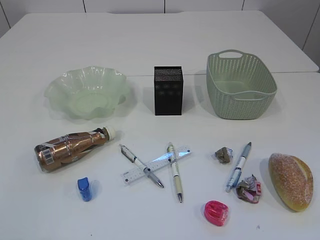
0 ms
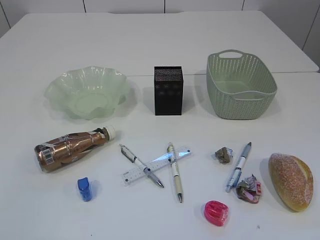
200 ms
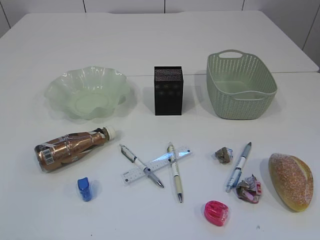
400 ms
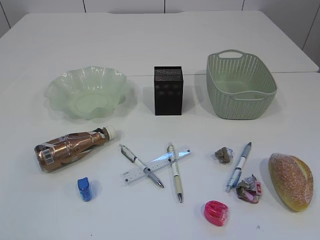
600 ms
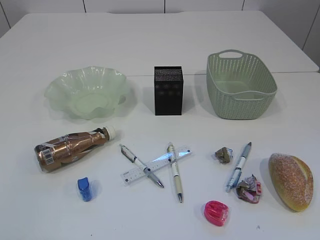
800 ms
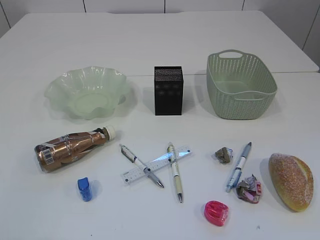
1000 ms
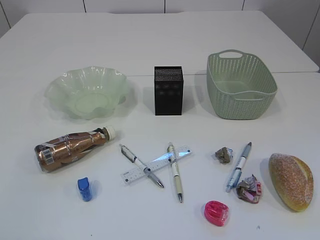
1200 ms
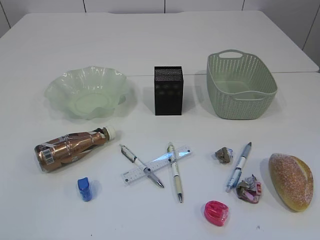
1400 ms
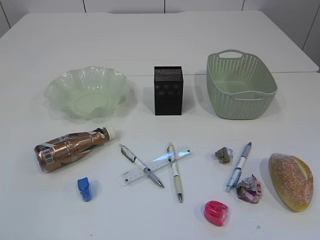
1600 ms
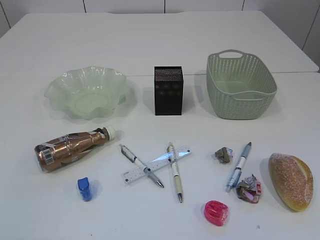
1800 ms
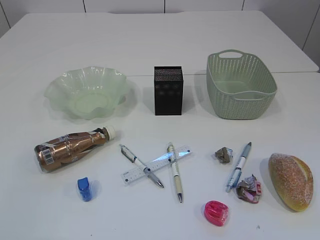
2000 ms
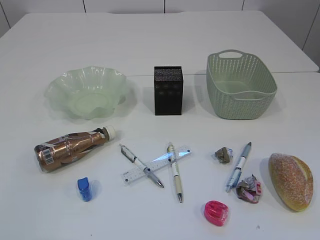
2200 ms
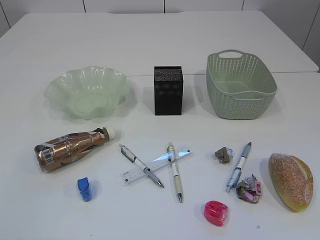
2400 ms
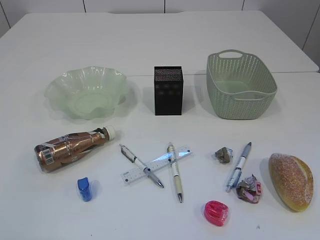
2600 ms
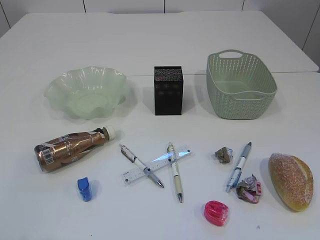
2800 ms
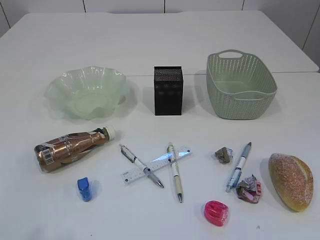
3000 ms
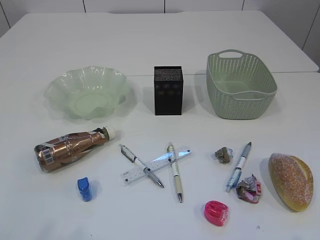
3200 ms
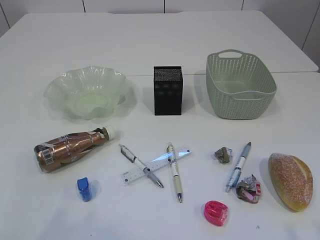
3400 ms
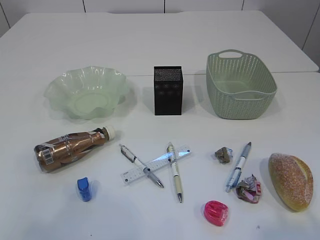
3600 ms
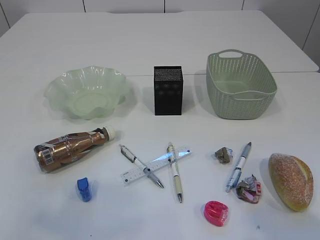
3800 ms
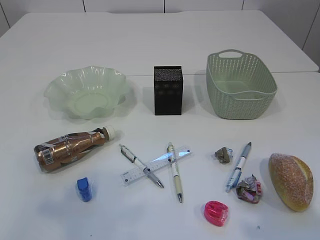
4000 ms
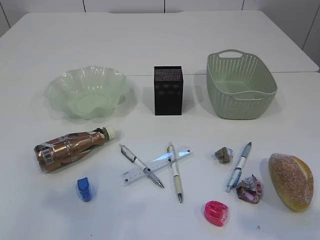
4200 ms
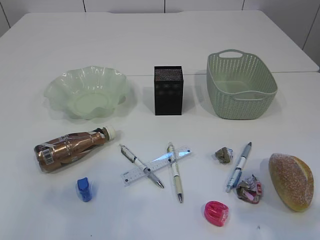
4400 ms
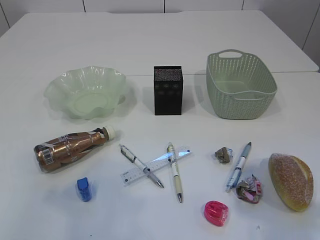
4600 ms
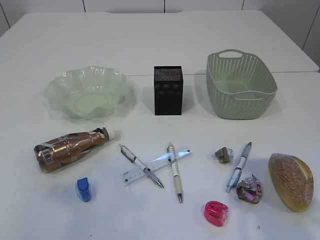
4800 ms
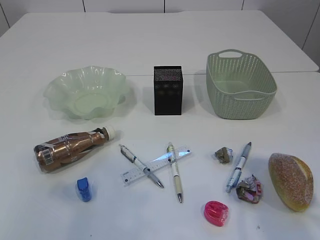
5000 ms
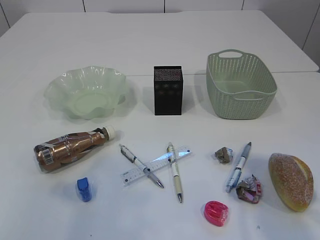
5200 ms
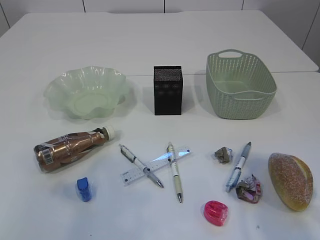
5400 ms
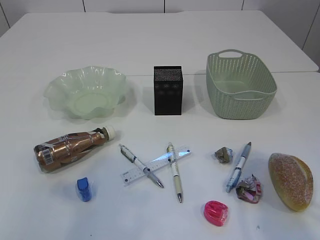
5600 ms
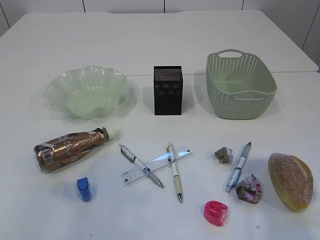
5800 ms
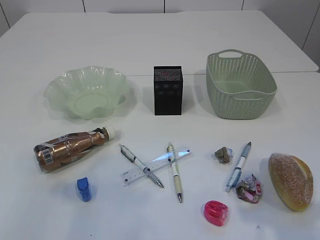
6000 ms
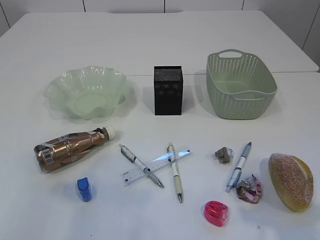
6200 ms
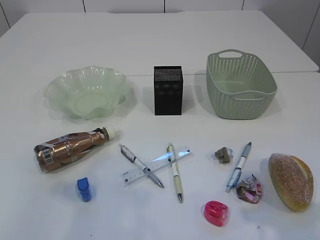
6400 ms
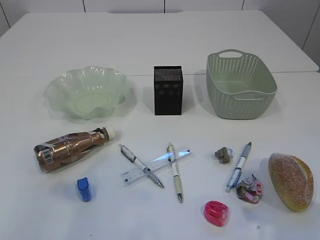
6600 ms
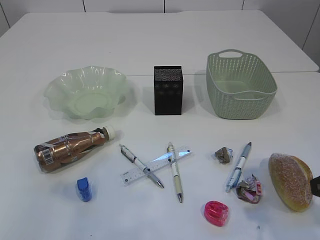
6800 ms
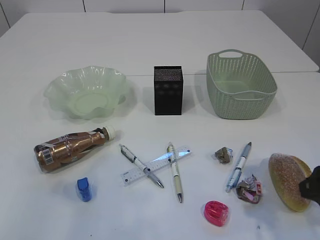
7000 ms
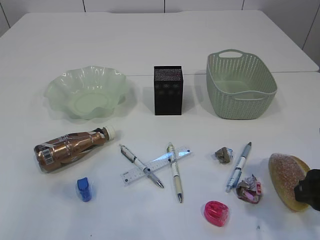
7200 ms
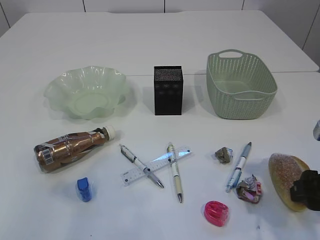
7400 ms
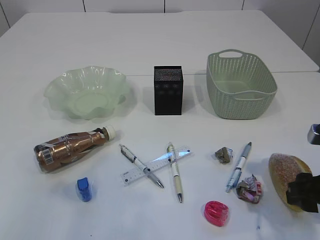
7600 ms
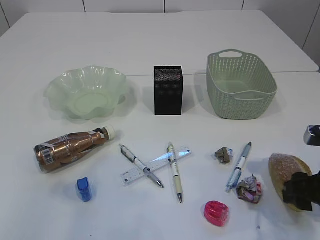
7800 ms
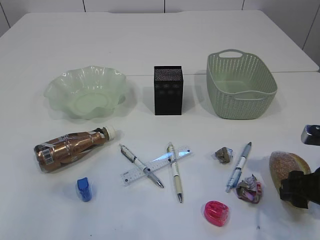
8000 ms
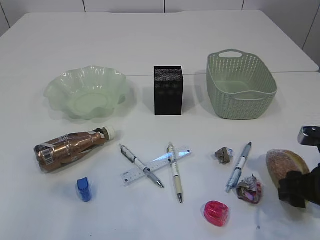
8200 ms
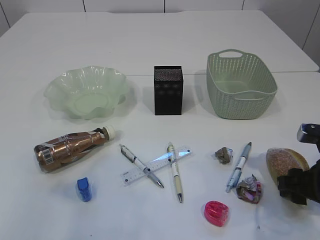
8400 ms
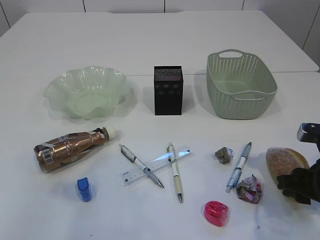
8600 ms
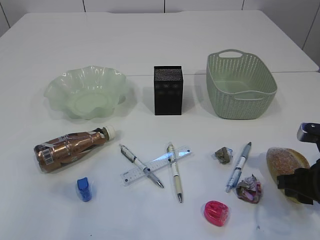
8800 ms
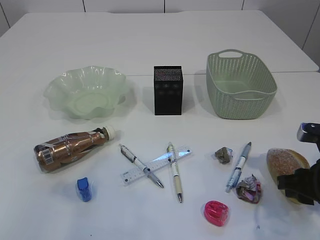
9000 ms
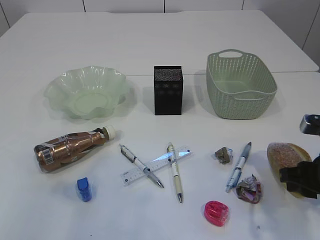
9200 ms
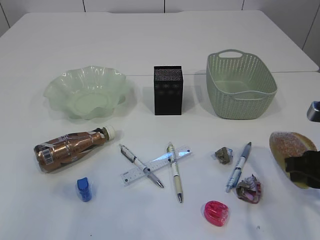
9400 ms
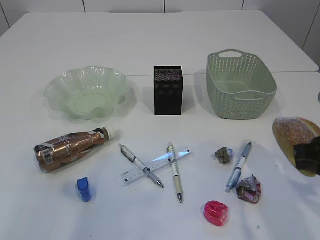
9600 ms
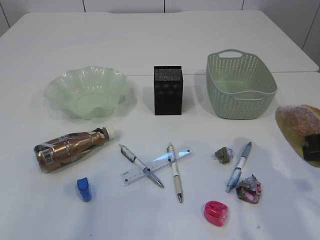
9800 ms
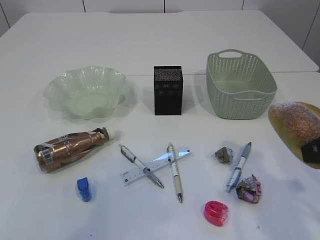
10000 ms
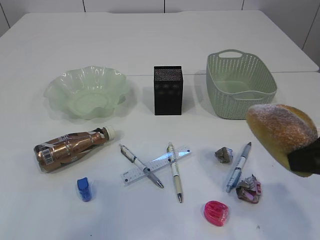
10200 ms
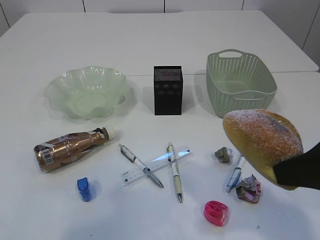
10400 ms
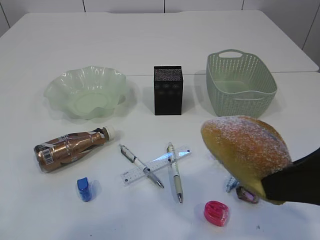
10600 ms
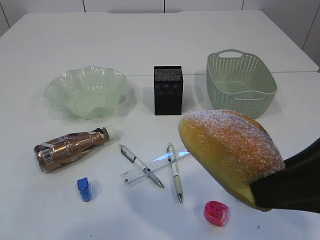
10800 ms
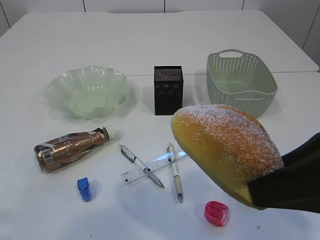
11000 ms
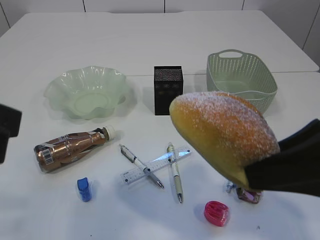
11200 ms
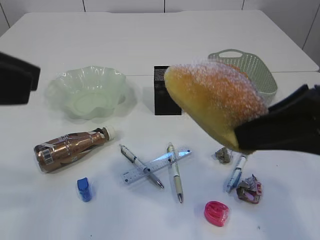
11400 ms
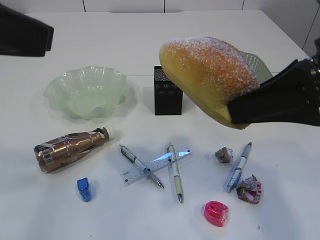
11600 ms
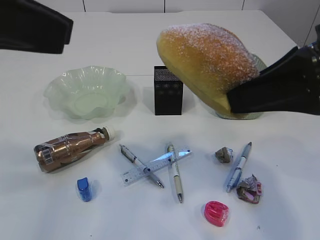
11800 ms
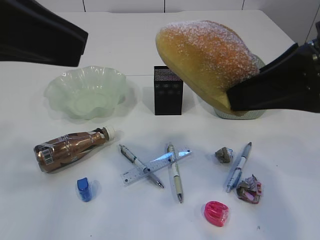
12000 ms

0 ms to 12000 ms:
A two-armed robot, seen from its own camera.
3000 ms to 4400 ms: Both grippers move forward, roughly 10 cm.
6000 ms to 7600 ms: The right gripper shifts some 15 cm downward and forward.
7600 ms to 9000 ms: The right gripper closes up.
9000 ms to 10400 ms: The right gripper goes some 15 cm upward and backward.
10400 ms to 12000 ms: The right gripper travels upward by roughly 5 cm, while the left gripper shifts approximately 15 cm forward and to the right.

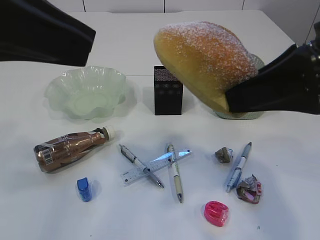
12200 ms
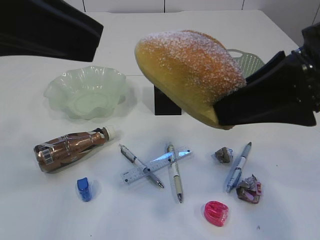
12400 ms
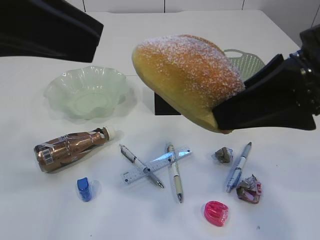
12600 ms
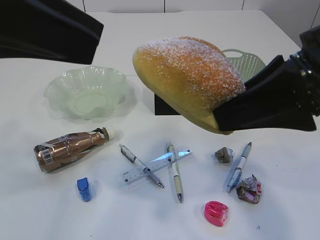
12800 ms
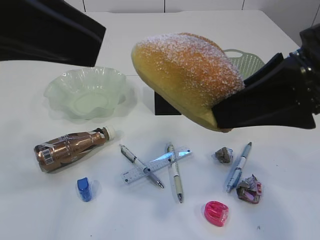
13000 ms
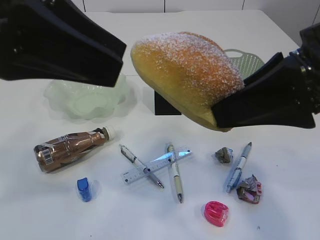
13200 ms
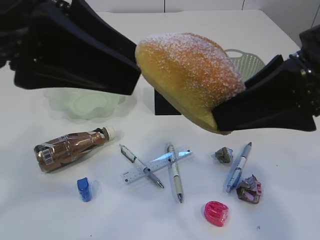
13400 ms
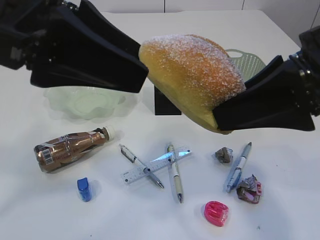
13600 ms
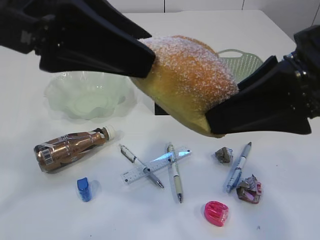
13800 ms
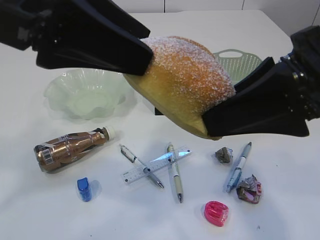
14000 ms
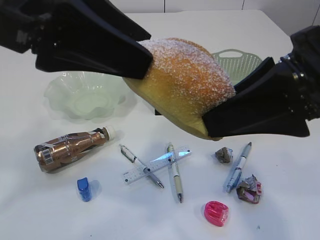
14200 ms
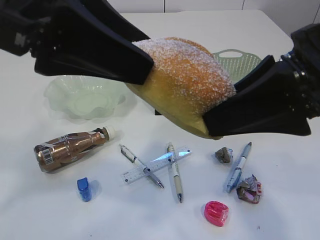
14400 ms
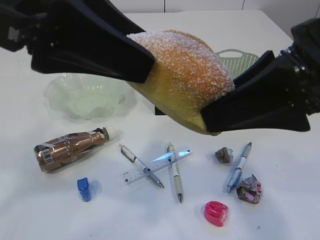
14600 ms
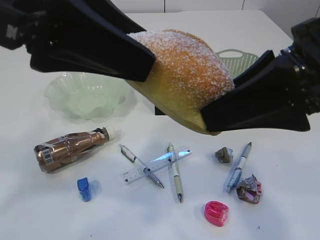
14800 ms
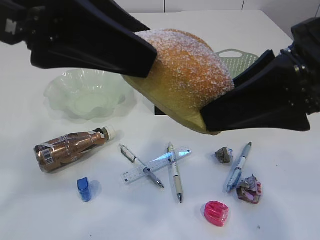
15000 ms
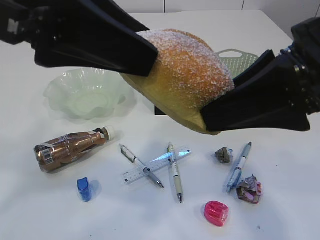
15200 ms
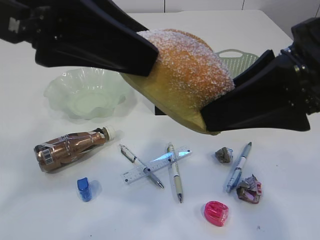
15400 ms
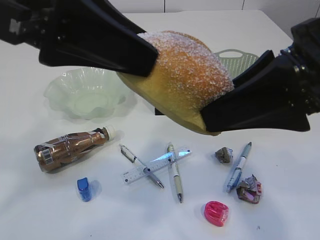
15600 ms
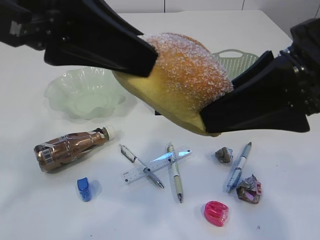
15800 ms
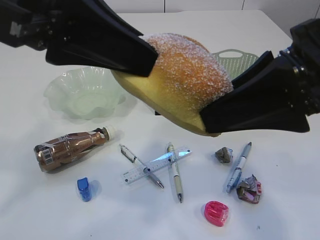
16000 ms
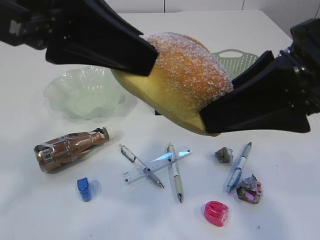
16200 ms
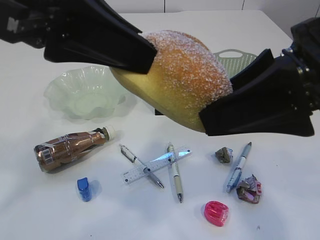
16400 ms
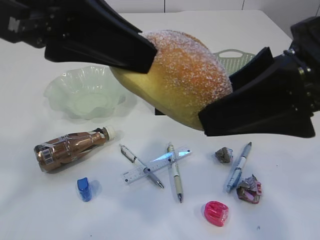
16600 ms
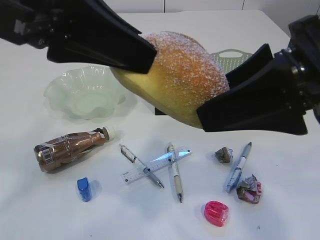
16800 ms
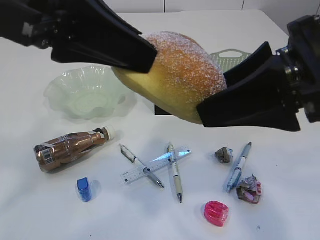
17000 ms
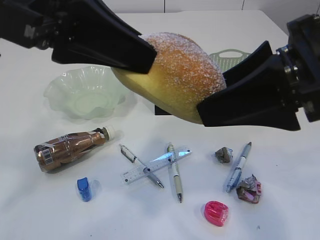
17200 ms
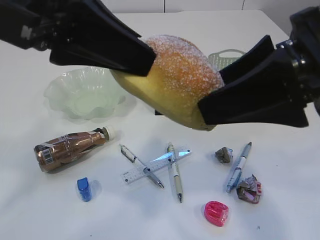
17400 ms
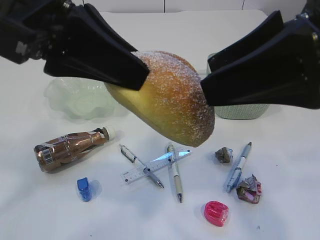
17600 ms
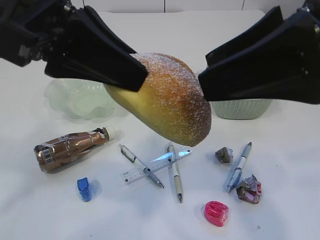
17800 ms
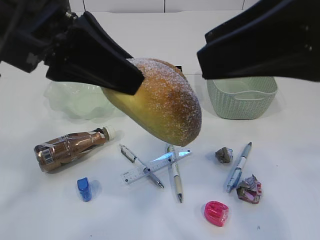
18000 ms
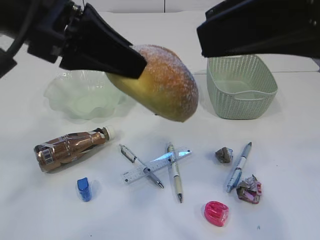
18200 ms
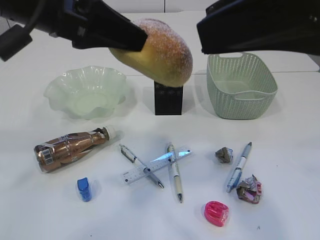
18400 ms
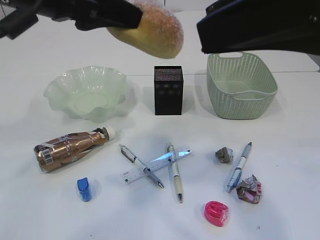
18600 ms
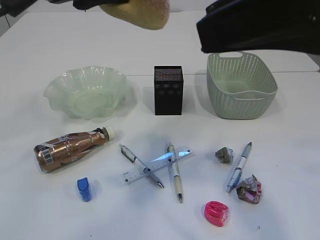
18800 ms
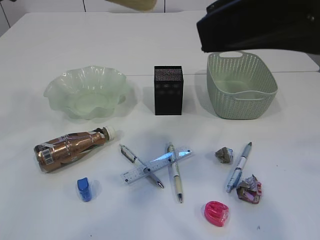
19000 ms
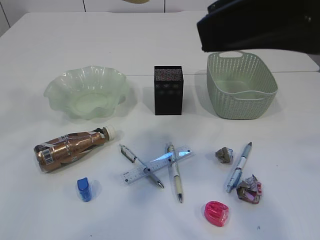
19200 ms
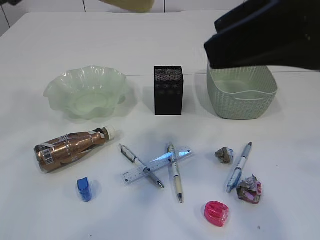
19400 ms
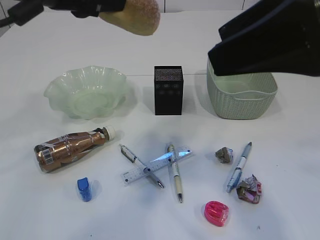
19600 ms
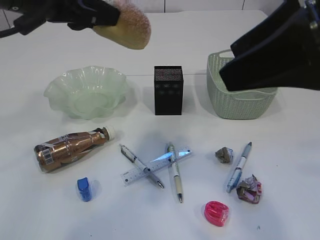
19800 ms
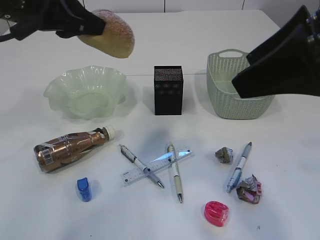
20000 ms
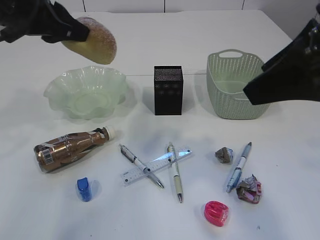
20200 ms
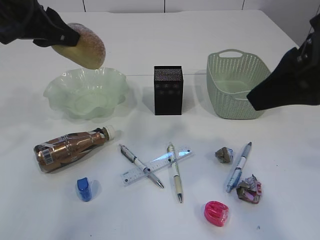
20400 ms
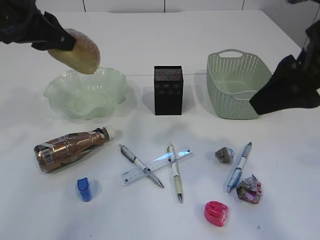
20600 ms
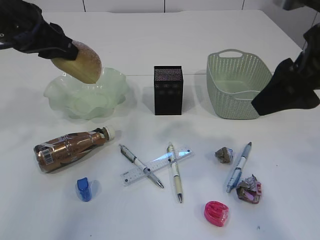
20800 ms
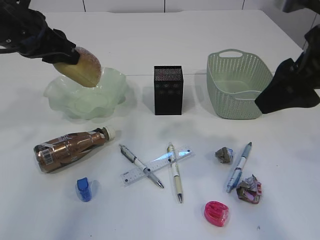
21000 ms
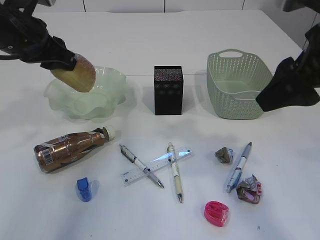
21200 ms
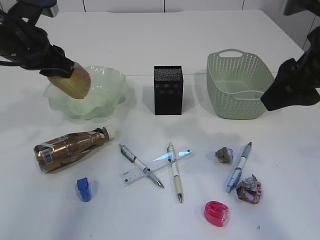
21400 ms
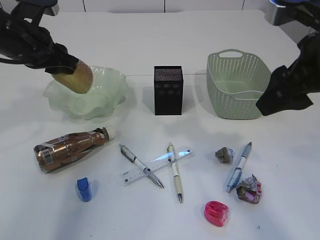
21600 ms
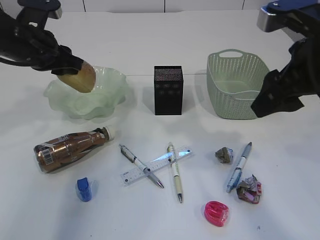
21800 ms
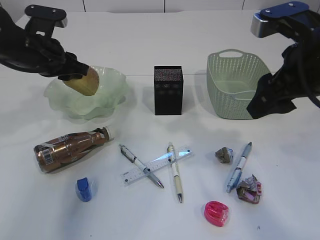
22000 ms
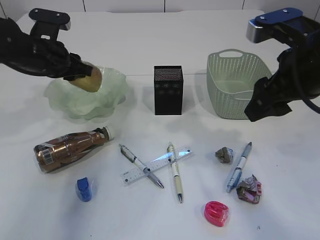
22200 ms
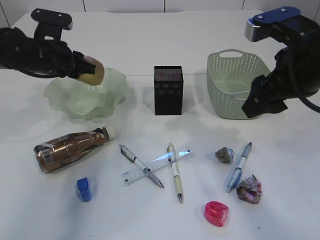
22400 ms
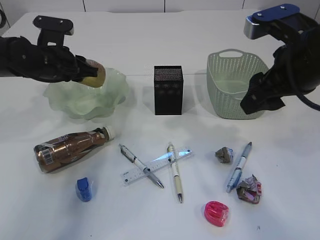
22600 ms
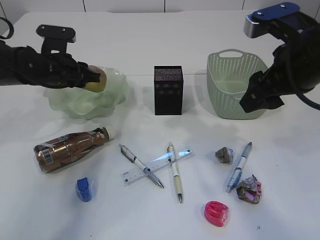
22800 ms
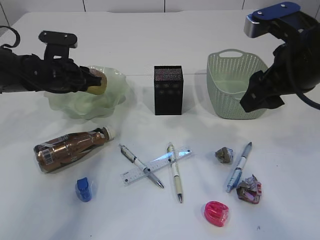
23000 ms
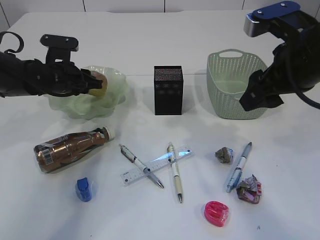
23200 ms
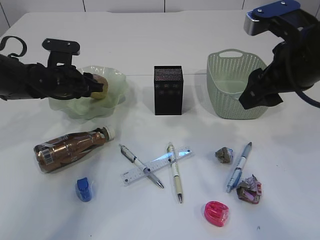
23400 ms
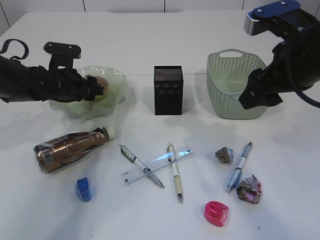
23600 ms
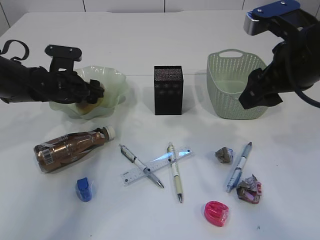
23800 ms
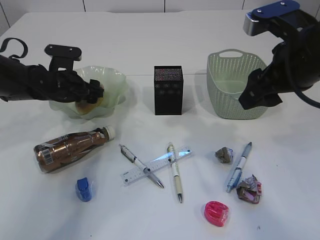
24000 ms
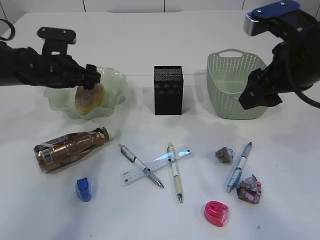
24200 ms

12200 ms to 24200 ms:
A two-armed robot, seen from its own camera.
Step, 12200 ms to 18400 ms: Hand over the bread.
12200 ms to 13800 ms: The left gripper shifts by about 5 cm.
13800 ms to 15200 ms: There are only small adjustments of the grippers.
15200 ms to 16600 ms: The left gripper closes its fingers; the right gripper opens up.
16600 ms to 18200 ms: The right gripper travels upward by some 5 cm.
18200 ms to 19800 ms: The left gripper moves forward, about 5 cm.
19800 ms to 21200 ms: The right gripper changes place by about 5 cm, while the left gripper is displaced downward and to the left by approximately 10 cm.
21200 ms to 22600 ms: The right gripper is displaced forward by about 5 cm. The left gripper shifts about 10 cm downward and forward.
22600 ms to 24200 ms: The left gripper opens up.
